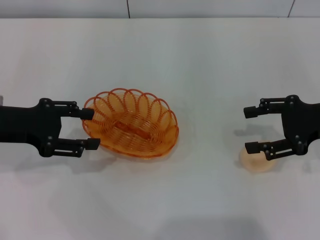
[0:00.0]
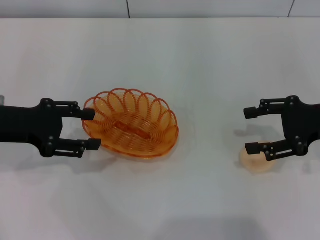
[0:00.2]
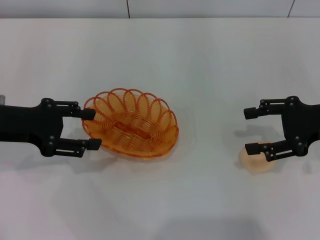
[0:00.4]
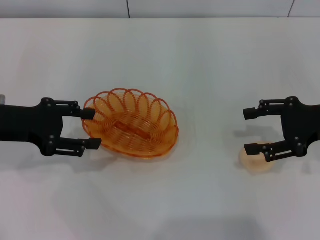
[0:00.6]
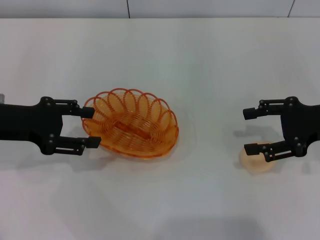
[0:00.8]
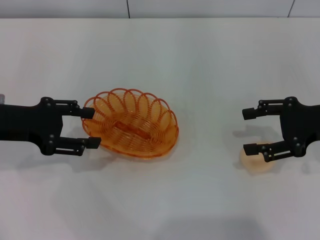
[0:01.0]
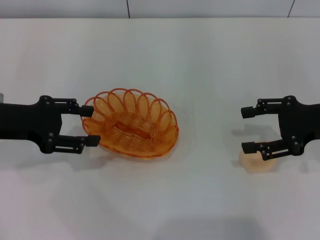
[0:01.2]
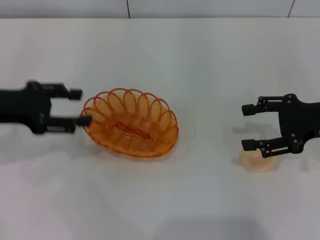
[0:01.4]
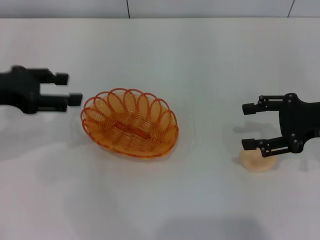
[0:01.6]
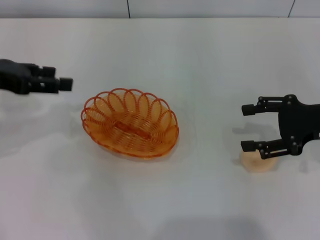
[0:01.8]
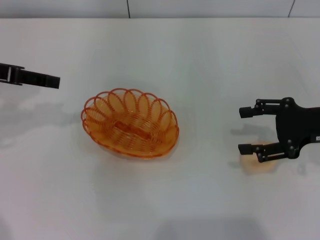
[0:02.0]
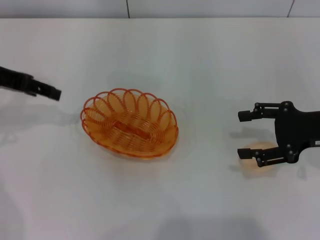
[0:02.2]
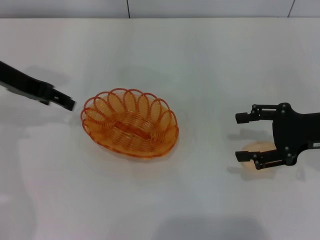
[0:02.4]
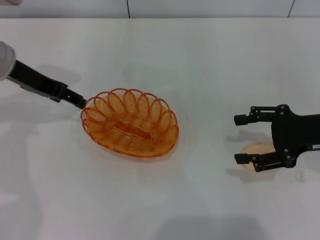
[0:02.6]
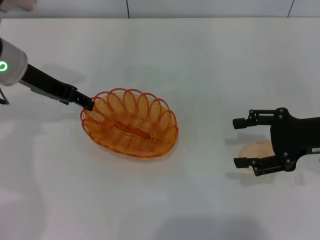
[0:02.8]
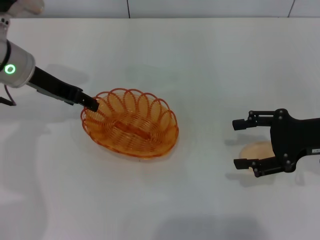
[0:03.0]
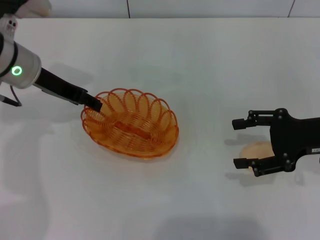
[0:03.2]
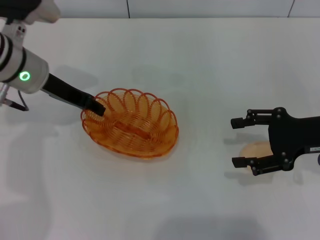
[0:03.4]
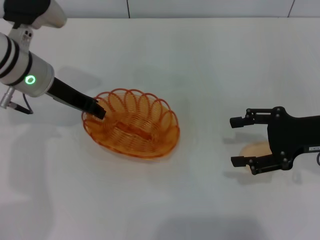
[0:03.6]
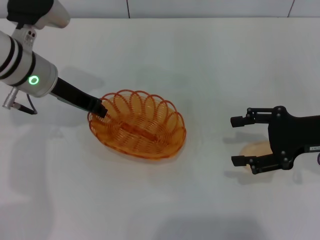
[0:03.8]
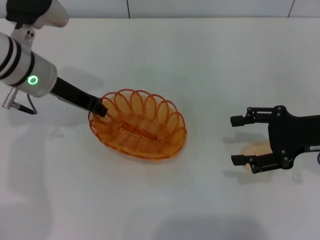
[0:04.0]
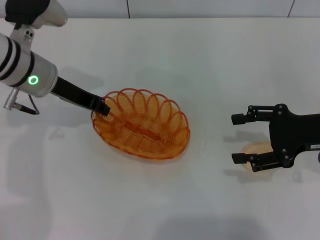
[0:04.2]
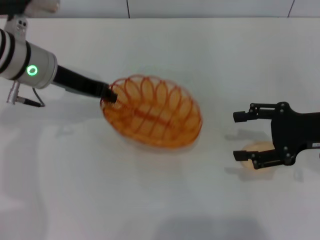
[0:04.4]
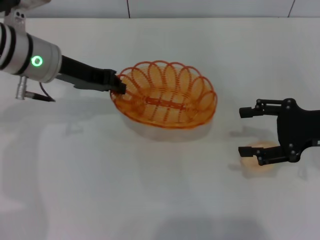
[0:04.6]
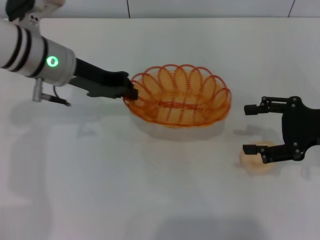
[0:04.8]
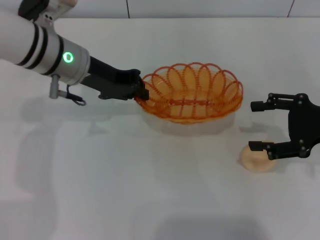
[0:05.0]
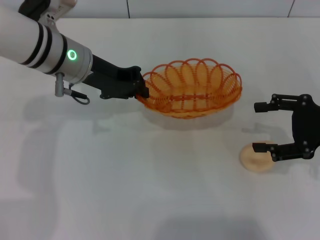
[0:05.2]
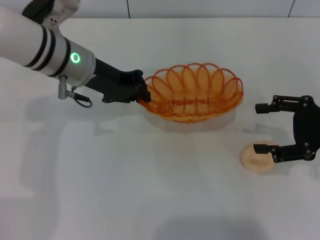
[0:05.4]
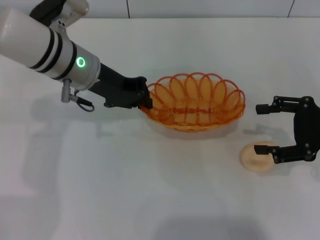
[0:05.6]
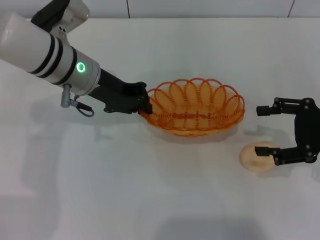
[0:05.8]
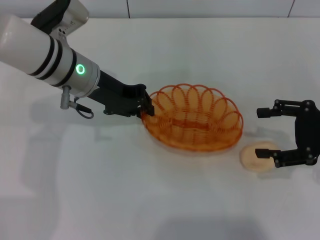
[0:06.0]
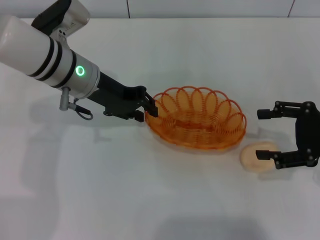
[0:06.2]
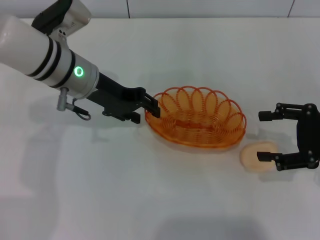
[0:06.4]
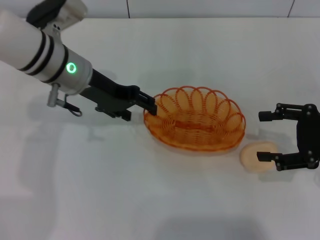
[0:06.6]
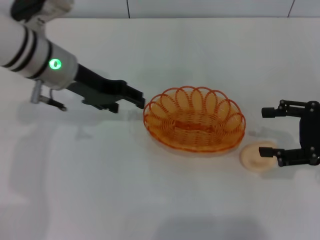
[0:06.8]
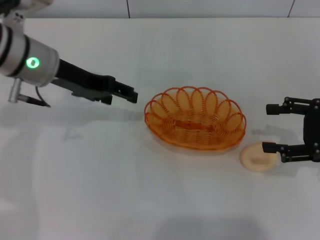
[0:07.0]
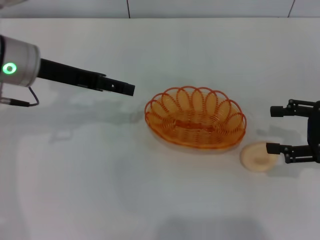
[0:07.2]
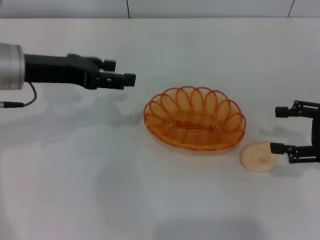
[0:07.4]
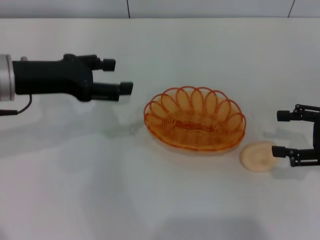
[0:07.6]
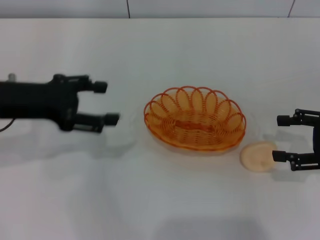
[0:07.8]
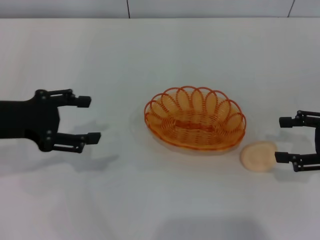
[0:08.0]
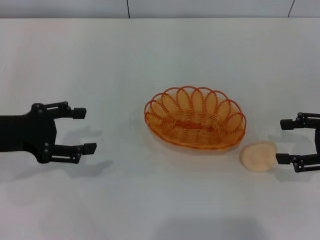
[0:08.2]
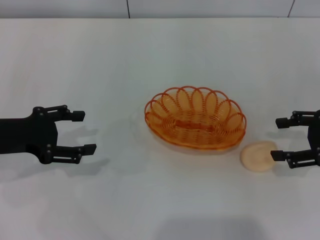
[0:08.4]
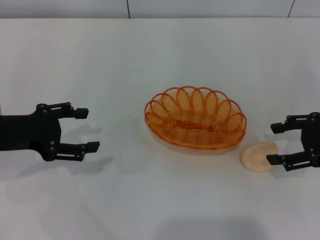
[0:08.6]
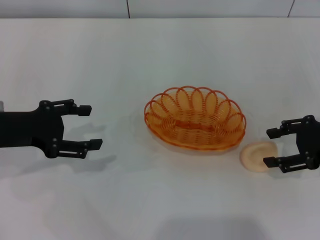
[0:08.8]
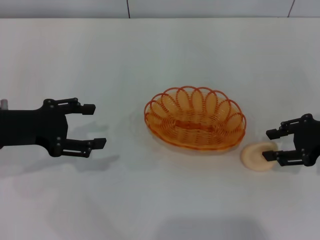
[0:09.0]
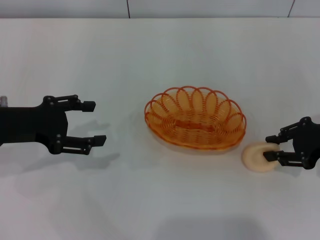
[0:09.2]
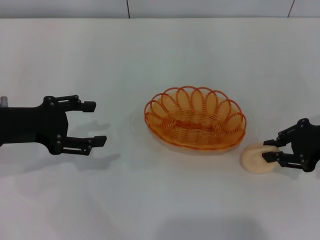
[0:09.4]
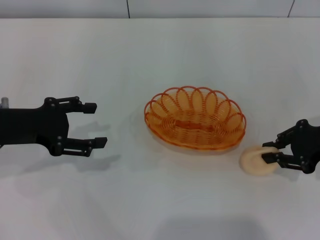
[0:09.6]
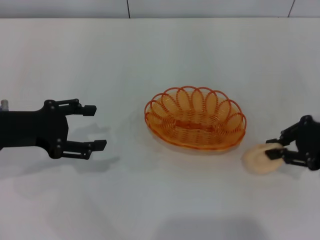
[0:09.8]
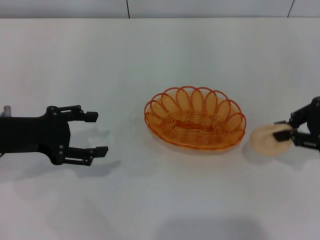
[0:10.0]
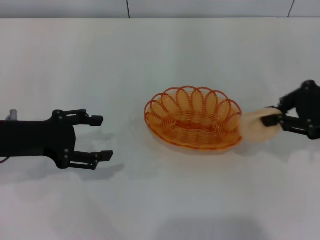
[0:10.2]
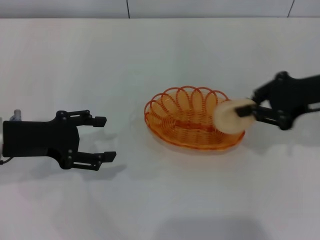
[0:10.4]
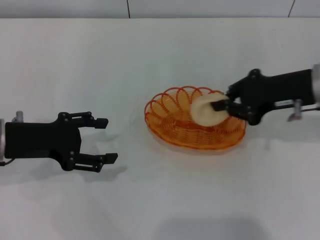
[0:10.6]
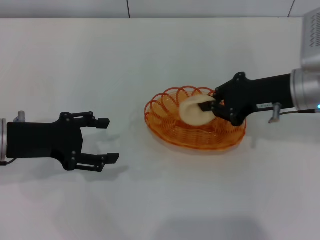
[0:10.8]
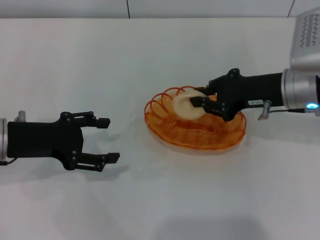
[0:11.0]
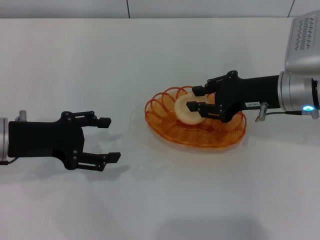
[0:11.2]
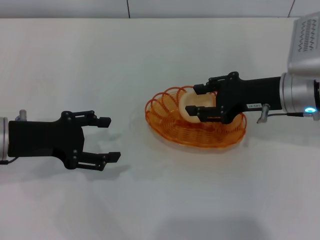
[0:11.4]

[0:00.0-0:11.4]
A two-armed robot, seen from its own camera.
Step, 0:00.0 to 0:04.2: Pick up the basket with the left gripper.
Step, 0:04.4 to 0:07.0: Place the basket in the center of view with the left gripper.
Step, 0:07.2 to 0:10.2: Pick up the egg yolk pastry with the right gripper.
0:00.0 to 0:01.4: The grippers stay close to where they were, moving slightly.
0:01.4 to 0:02.8: The left gripper is displaced forward and to the right by approximately 10 cm.
0:02.8 to 0:04.2: The left gripper closes.
0:04.2 to 0:05.6: The left gripper moves to the right, approximately 5 cm.
0:05.6 to 0:07.2: The left gripper is displaced to the left by roughly 5 cm, and opens.
0:07.2 to 0:08.6: The left gripper travels backward, to the left and downward by roughly 10 cm.
0:08.6 to 0:10.0: The right gripper closes its fingers.
0:10.0 to 0:11.4: The right gripper travels to the left by some 10 cm.

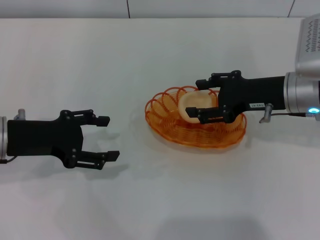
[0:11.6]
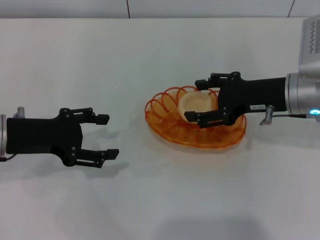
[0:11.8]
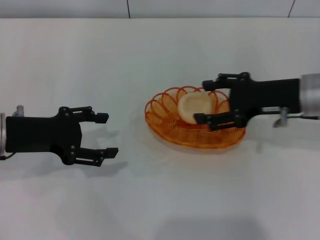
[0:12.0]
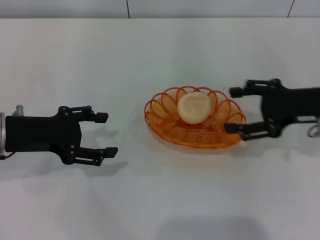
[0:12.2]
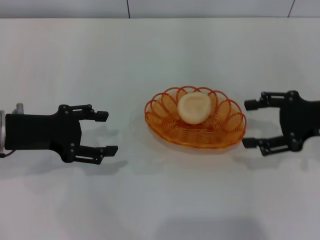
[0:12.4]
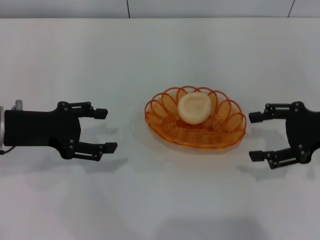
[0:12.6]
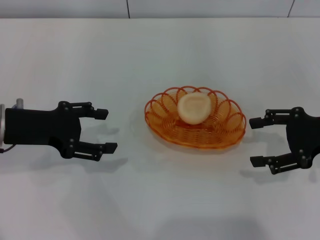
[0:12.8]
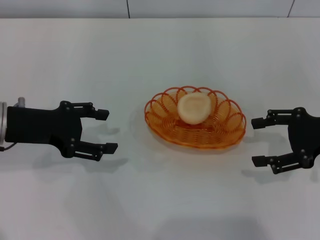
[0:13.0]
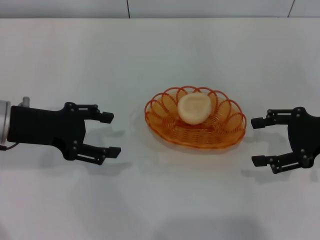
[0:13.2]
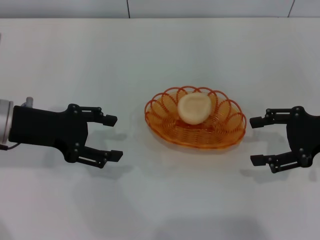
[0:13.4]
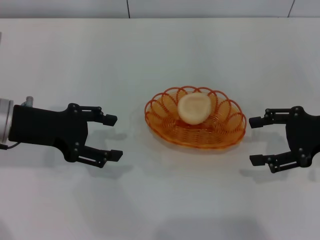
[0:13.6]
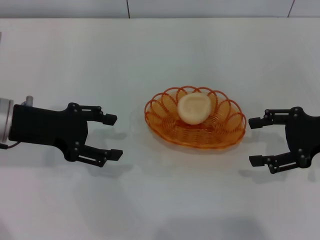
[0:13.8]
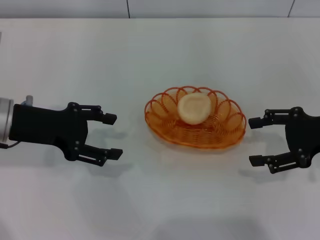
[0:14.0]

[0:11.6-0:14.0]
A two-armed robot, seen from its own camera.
0:11.6 to 0:12.8: The right gripper shifts approximately 10 cm to the right.
0:12.8 to 0:14.0: The grippers stay close to where they were, moving slightly.
